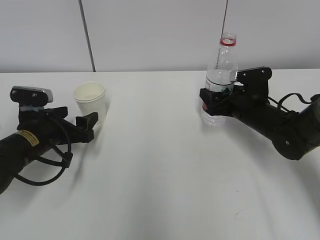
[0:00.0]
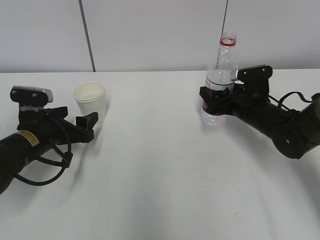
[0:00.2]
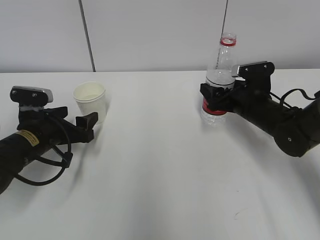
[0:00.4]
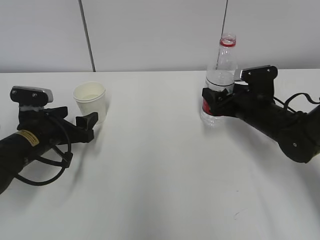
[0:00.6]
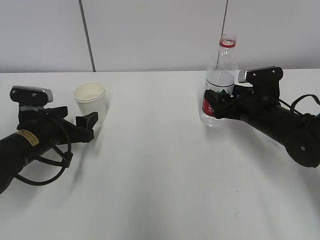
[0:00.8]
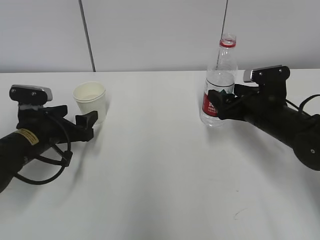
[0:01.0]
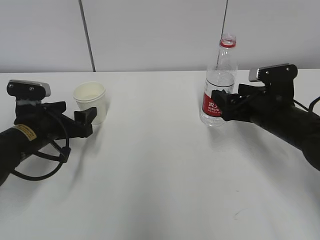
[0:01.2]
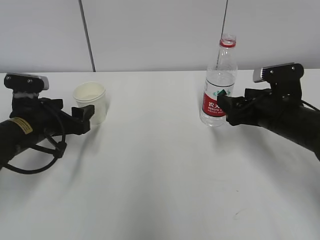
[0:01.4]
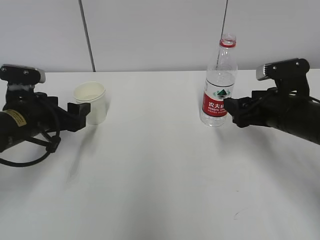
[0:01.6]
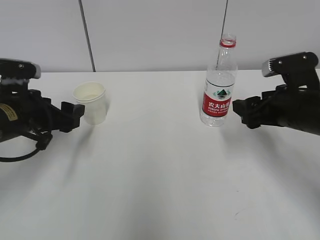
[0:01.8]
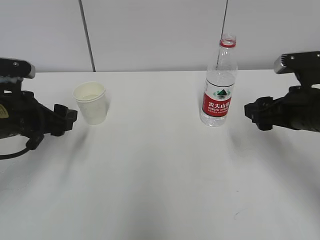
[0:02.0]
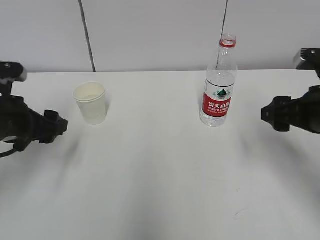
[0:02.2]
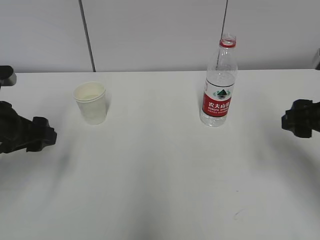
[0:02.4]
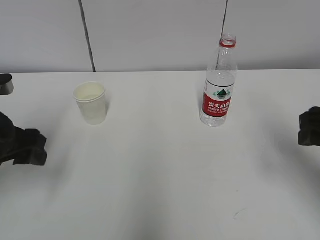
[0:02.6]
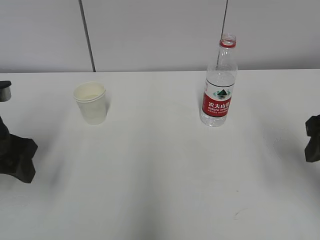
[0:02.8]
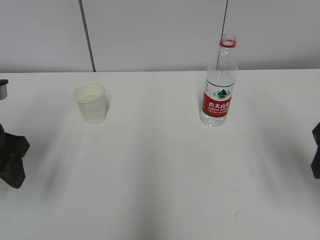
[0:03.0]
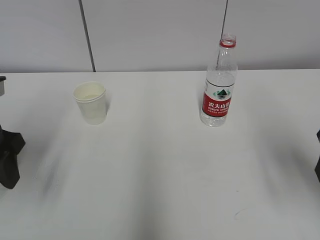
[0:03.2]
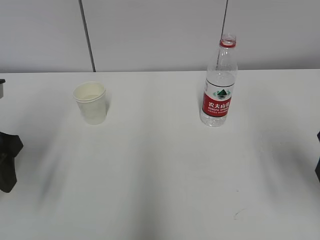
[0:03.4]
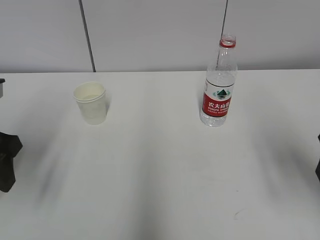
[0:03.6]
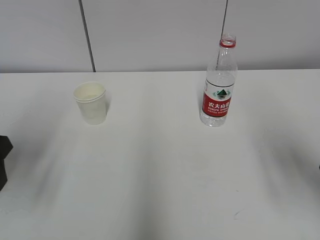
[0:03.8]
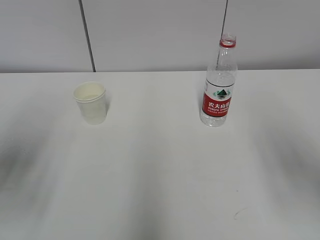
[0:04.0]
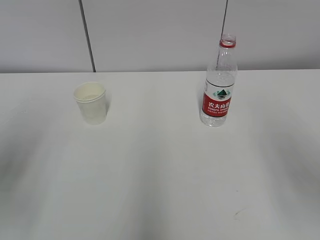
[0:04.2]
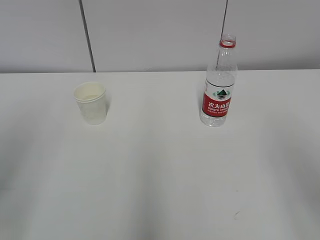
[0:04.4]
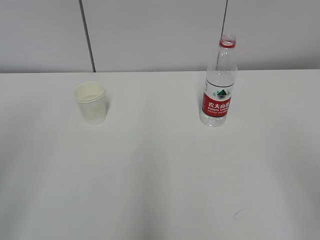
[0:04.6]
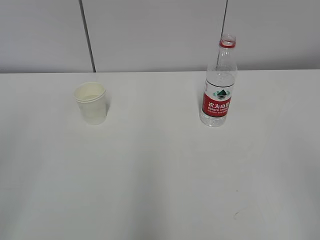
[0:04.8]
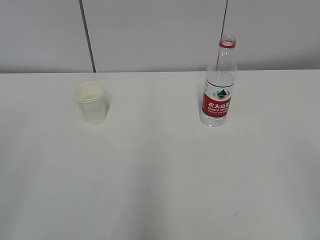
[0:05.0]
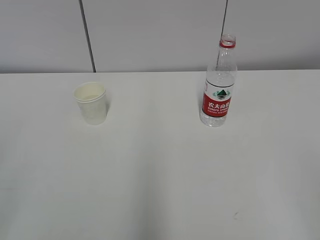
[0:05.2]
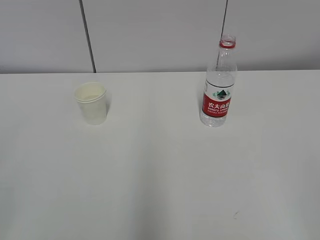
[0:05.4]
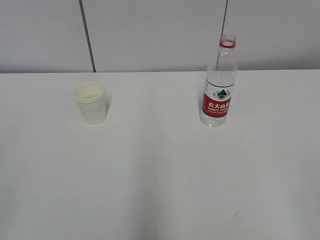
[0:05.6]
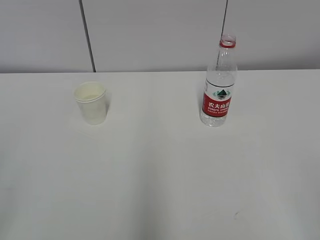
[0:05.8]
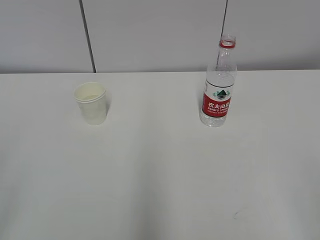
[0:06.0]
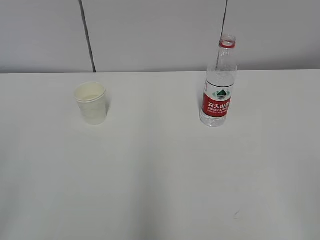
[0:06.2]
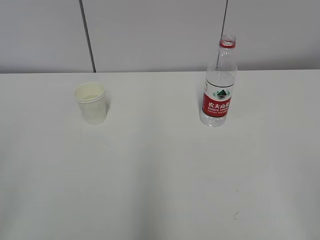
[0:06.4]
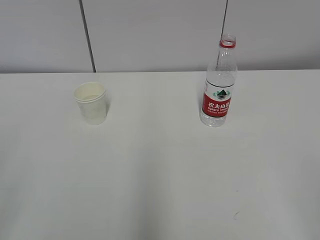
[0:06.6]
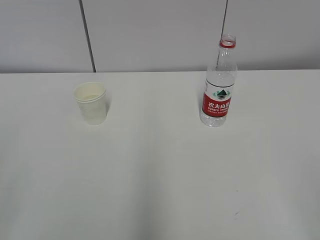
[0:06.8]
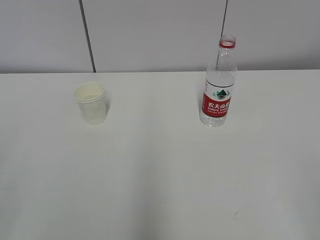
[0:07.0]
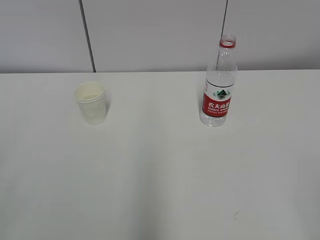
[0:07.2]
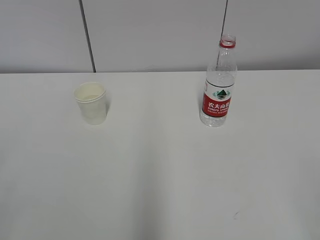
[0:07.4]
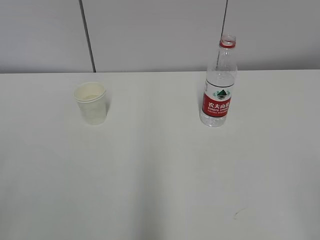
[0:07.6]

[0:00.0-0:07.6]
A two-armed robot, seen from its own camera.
0:00.0 to 0:01.6: The left gripper moves some 5 cm. Meanwhile the right gripper heads backward and upward, covering roughly 10 cm.
0:01.6 to 0:03.0: The left gripper is displaced upward and backward by some 10 cm. Meanwhile the right gripper moves backward and upward, approximately 15 cm.
0:03.0 to 0:04.6: The left gripper moves backward and upward, roughly 20 cm. The right gripper travels backward by some 15 cm.

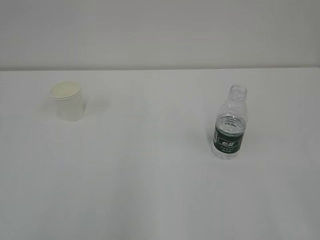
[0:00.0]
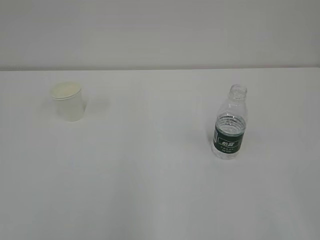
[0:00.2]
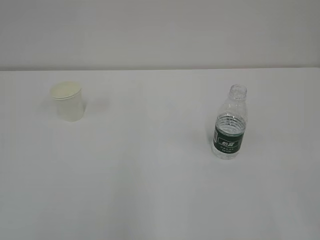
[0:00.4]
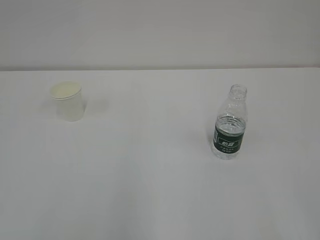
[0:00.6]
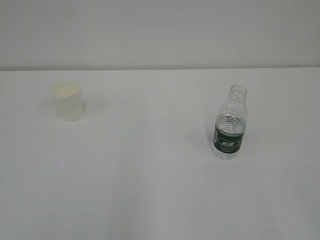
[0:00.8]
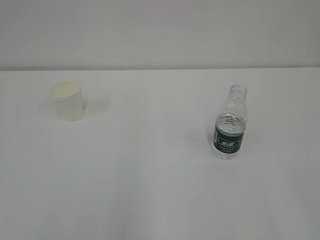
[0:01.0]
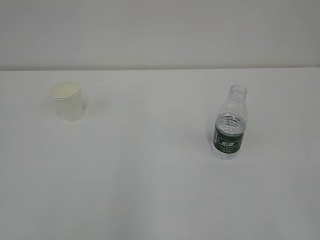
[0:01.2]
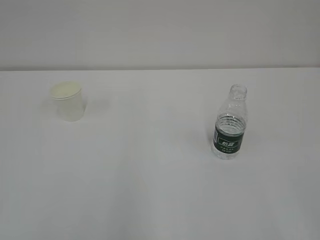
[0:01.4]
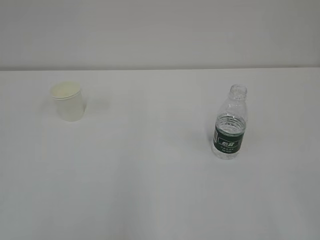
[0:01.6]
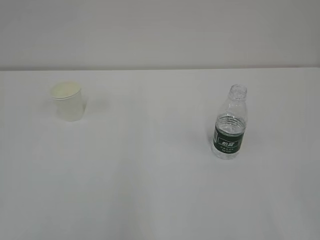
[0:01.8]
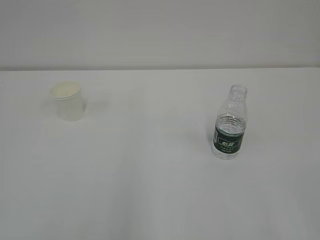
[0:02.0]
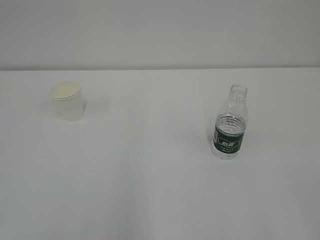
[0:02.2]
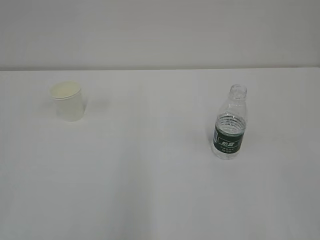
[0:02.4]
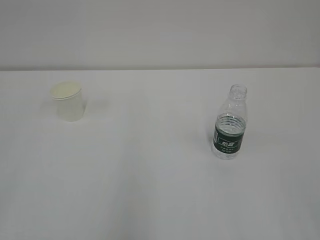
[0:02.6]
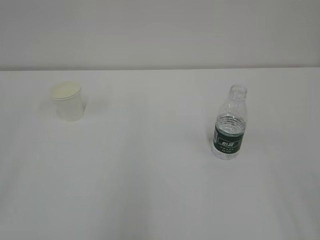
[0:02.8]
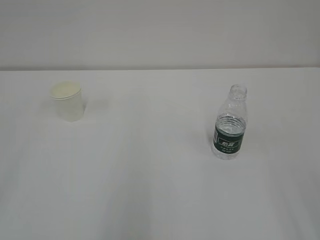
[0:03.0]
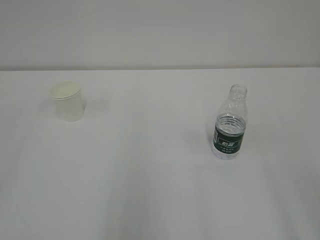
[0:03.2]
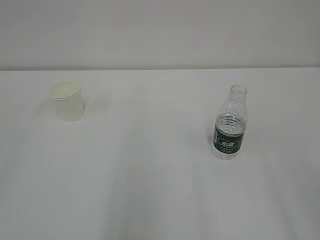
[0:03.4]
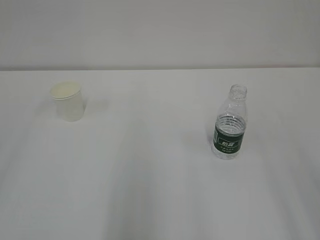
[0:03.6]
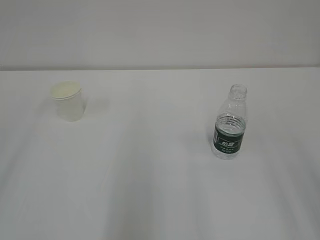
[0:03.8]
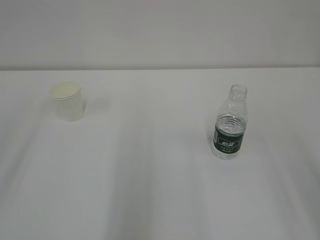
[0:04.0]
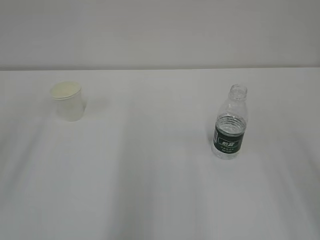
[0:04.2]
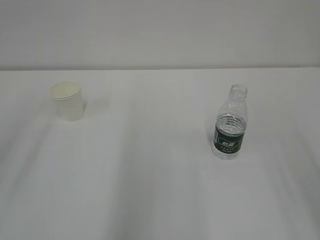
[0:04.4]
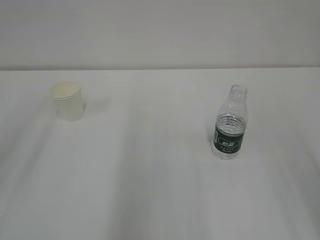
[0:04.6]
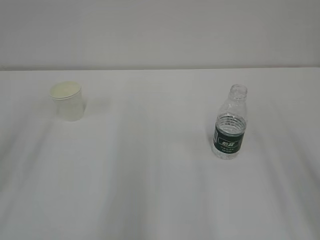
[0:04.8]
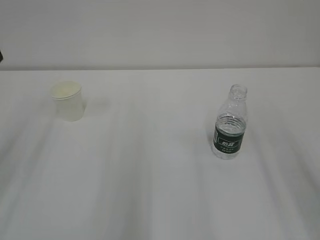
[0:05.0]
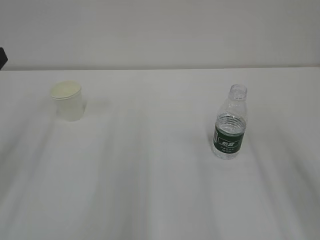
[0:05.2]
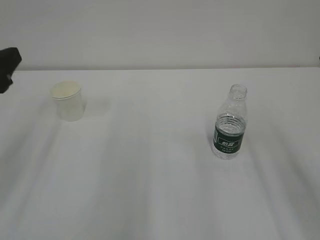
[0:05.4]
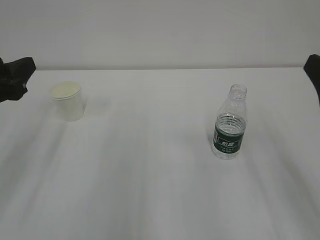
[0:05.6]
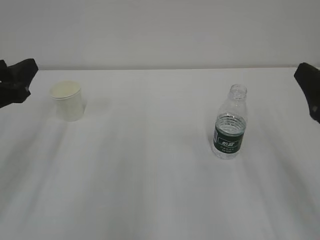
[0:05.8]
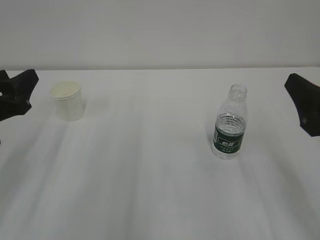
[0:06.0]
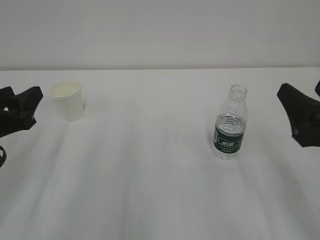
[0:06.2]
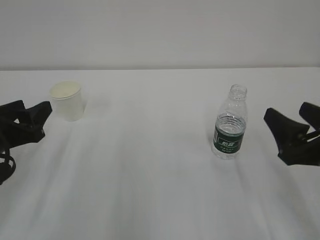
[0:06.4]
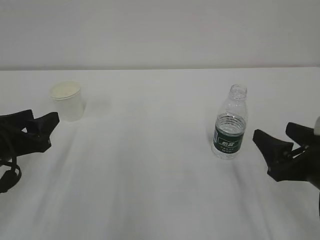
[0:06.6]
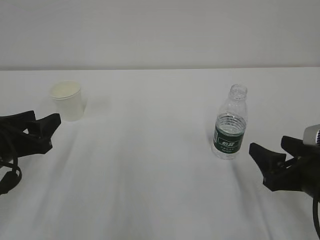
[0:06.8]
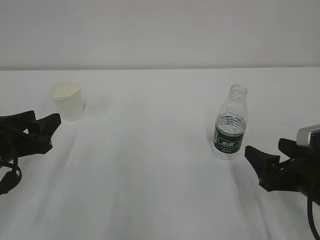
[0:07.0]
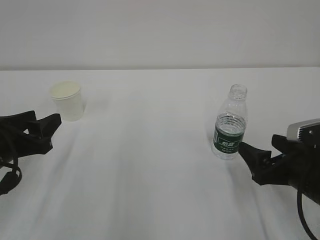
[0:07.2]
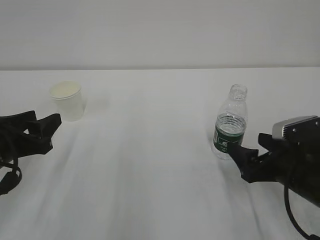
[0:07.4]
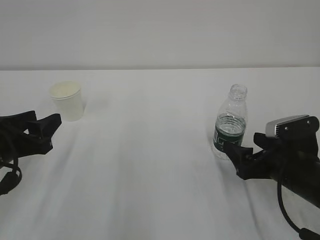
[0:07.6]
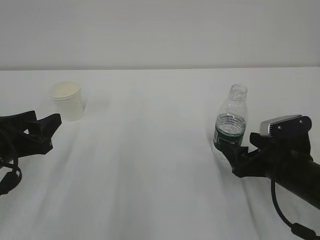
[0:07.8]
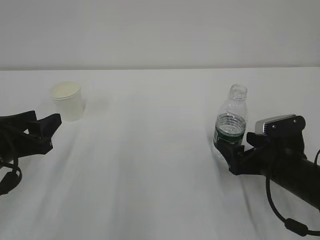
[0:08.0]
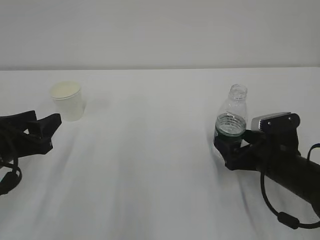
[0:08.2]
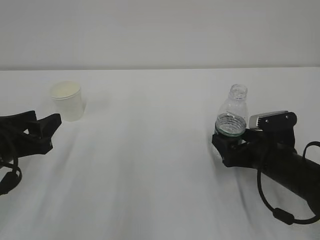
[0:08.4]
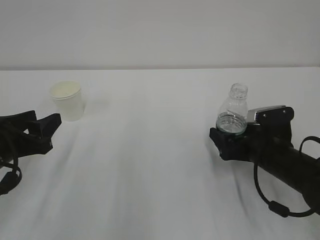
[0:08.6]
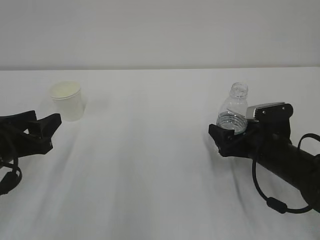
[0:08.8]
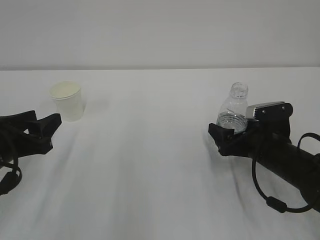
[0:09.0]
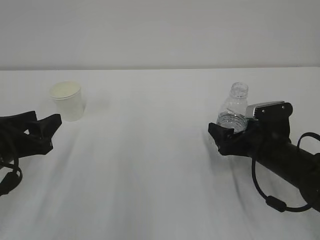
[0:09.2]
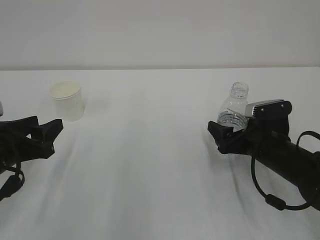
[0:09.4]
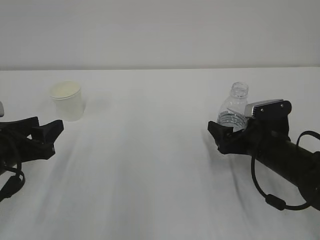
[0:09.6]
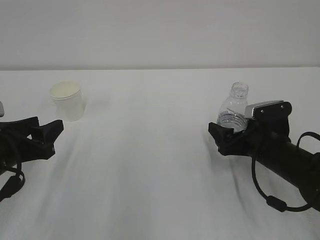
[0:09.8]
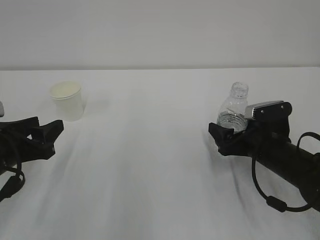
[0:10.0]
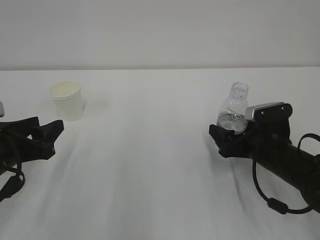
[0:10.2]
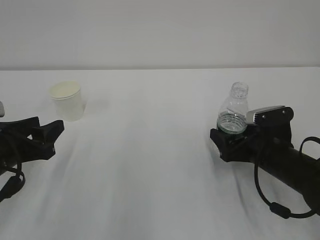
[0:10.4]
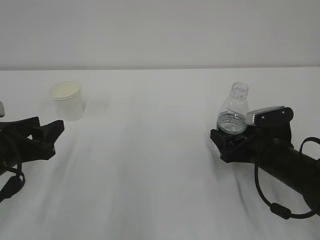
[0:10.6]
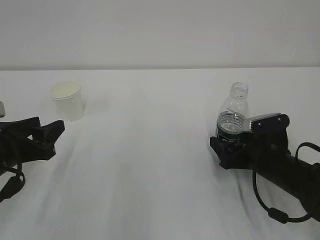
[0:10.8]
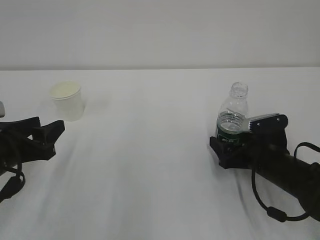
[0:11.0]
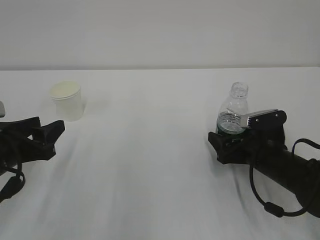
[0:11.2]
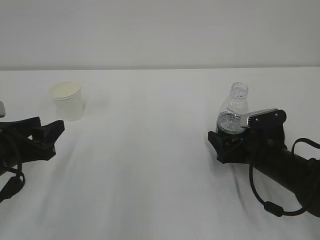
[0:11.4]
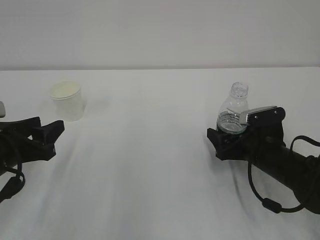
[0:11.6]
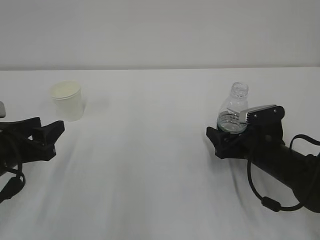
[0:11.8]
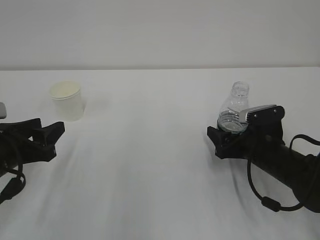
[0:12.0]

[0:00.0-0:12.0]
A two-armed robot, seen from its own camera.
0:04.4 to 0:06.0: The two grippers go approximately 15 cm downward and forward.
0:06.0 to 0:07.6: The right gripper shifts approximately 15 cm downward and forward, while the left gripper shifts roughly 5 cm downward.
0:07.6 to 0:09.0: The right gripper goes roughly 5 cm forward.
0:09.0 to 0:10.4: Neither gripper changes place.
0:10.4 to 0:12.0: The grippers stay close to where they were, moving slightly.

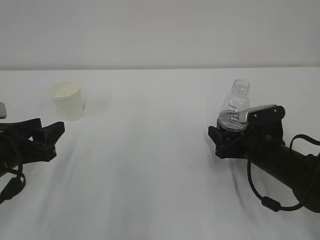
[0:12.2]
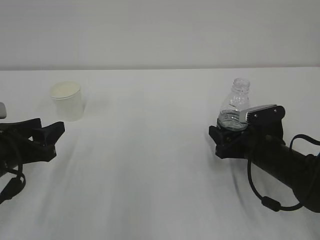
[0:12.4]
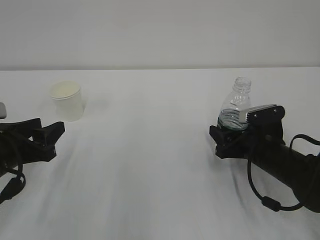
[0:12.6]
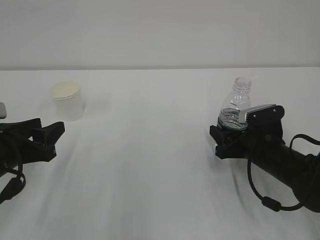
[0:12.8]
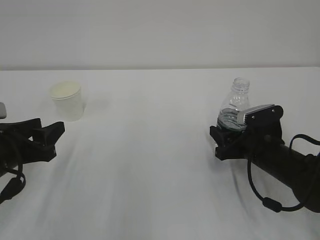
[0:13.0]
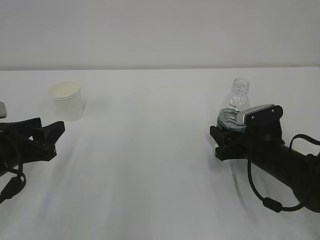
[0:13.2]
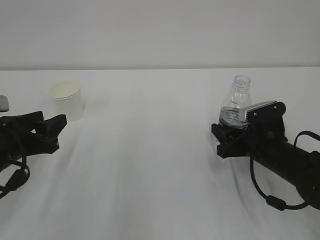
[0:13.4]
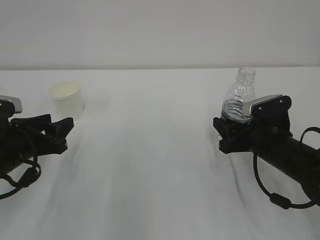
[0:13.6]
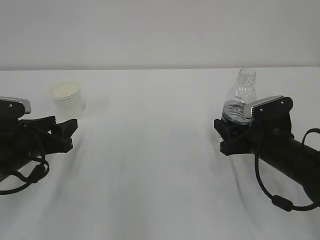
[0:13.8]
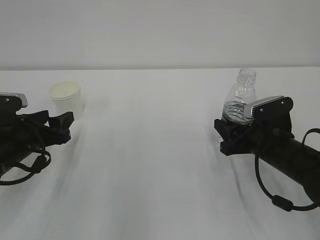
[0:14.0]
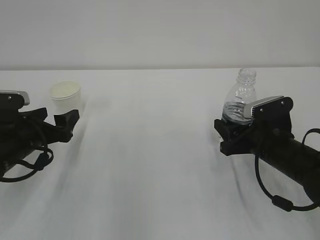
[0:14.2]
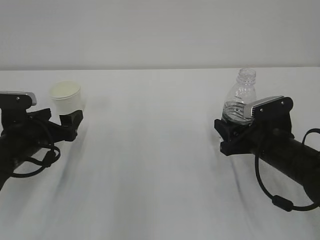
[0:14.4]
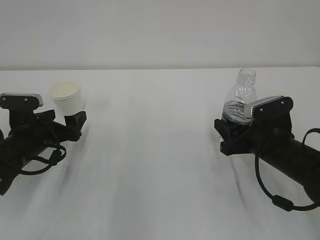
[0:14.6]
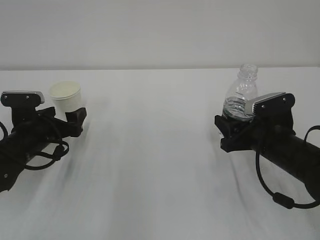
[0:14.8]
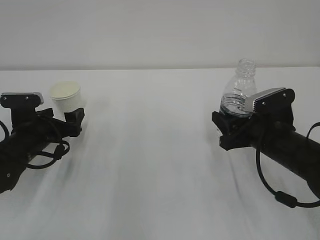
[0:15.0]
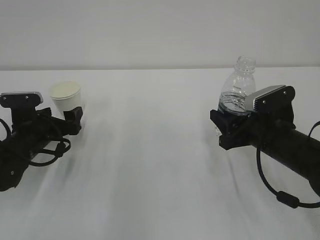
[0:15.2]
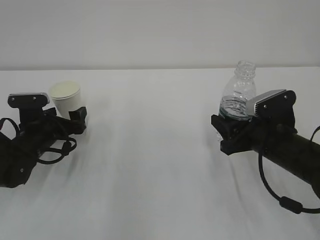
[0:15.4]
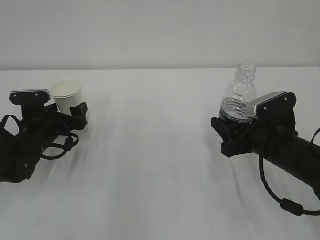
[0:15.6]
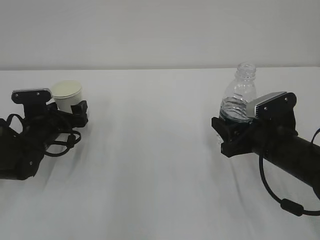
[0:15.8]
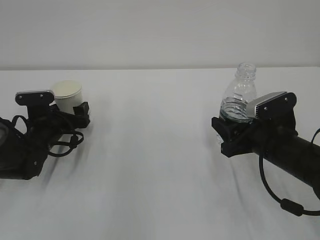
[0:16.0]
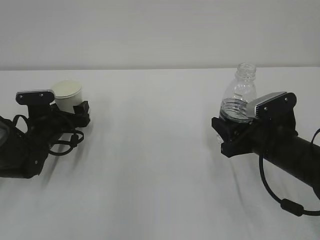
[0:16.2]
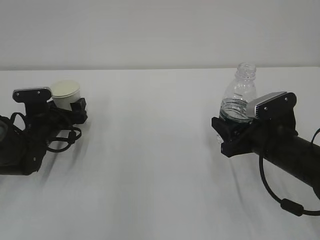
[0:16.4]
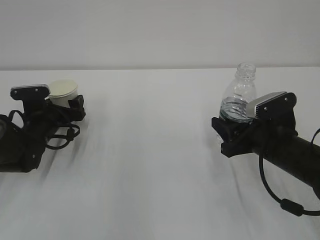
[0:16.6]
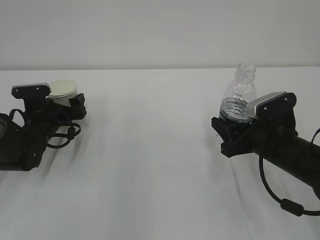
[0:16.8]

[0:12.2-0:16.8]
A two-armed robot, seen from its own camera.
0:12.2 to 0:13.8: The right gripper closes up.
0:13.8 to 0:15.2: The left gripper goes about 5 cm forward, and opens its fingers.
0:15.2 to 0:16.8: The left gripper moves forward, approximately 5 cm.
